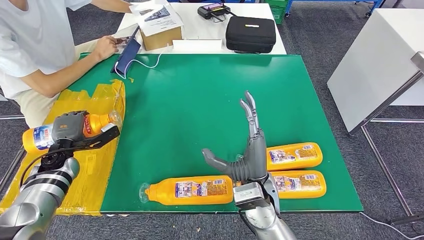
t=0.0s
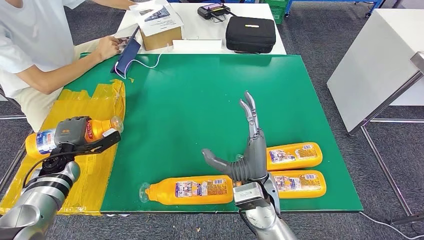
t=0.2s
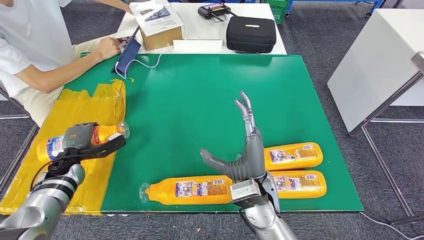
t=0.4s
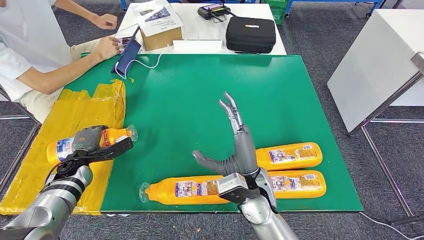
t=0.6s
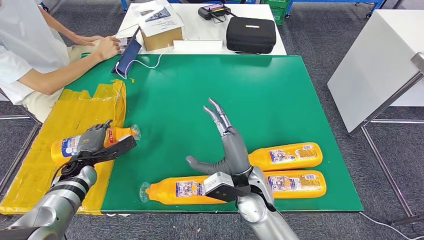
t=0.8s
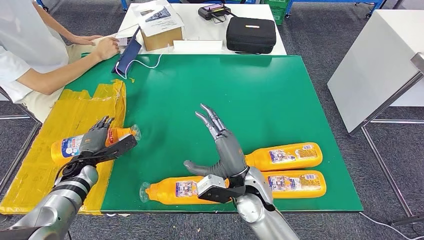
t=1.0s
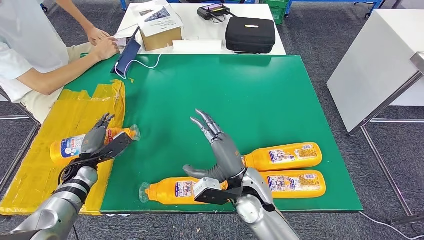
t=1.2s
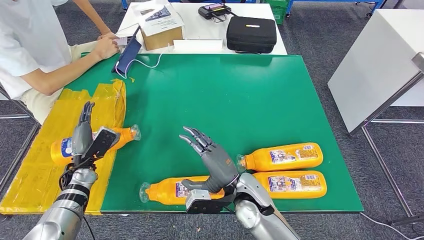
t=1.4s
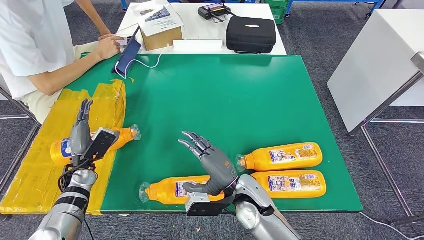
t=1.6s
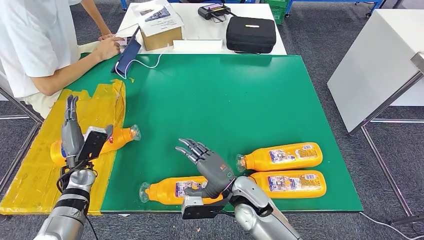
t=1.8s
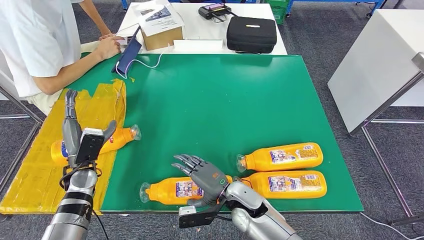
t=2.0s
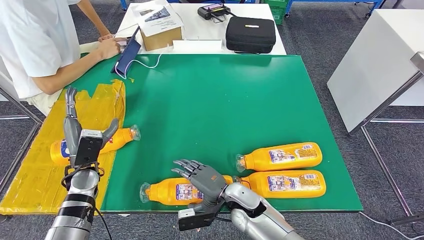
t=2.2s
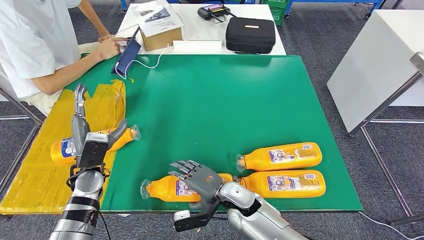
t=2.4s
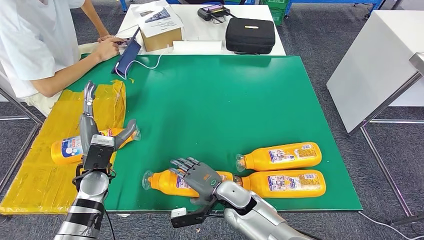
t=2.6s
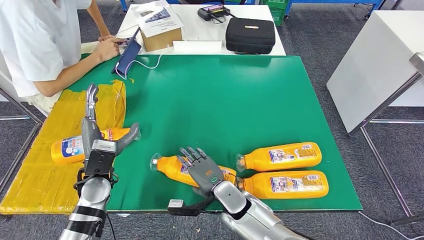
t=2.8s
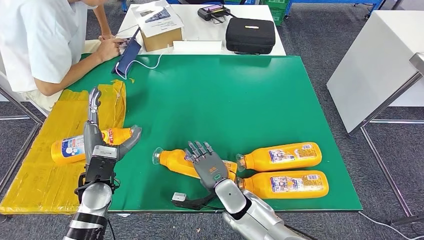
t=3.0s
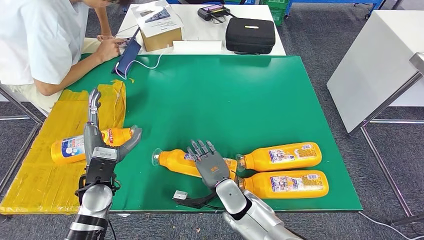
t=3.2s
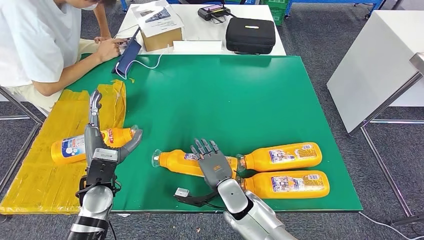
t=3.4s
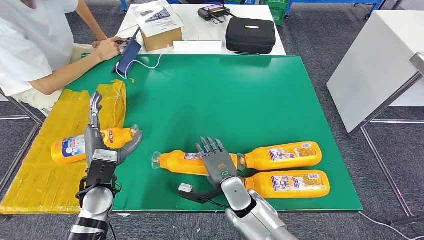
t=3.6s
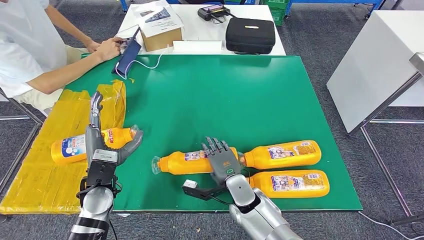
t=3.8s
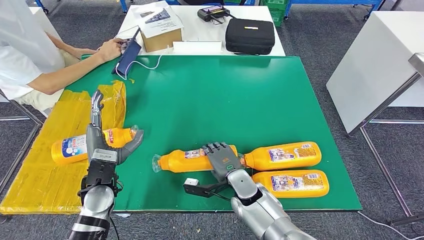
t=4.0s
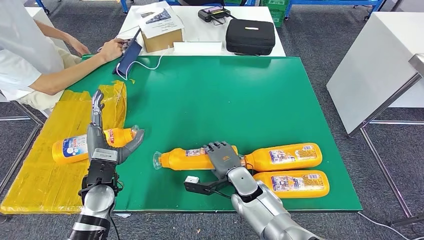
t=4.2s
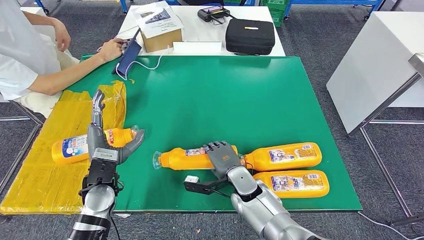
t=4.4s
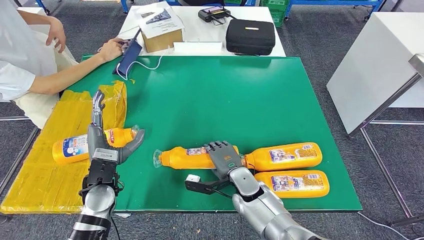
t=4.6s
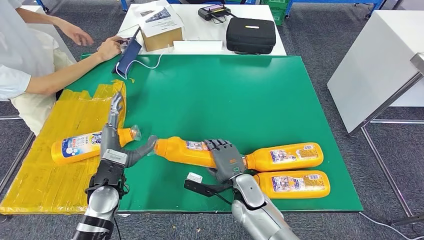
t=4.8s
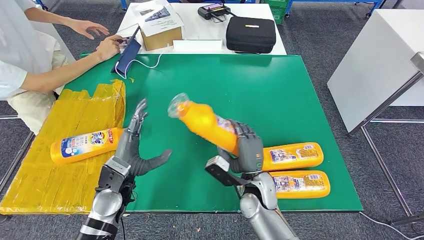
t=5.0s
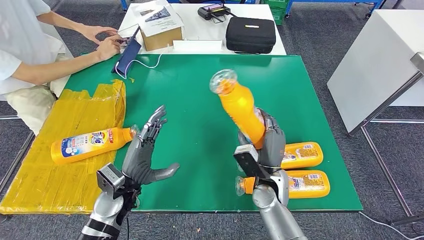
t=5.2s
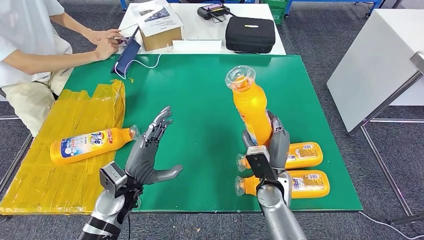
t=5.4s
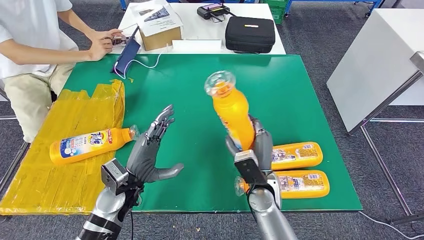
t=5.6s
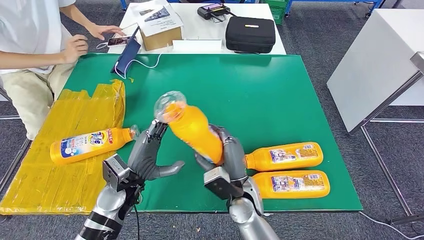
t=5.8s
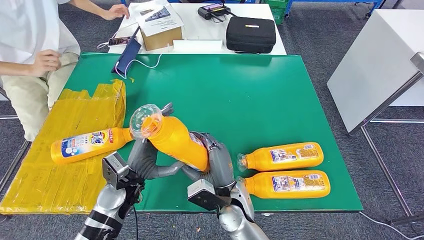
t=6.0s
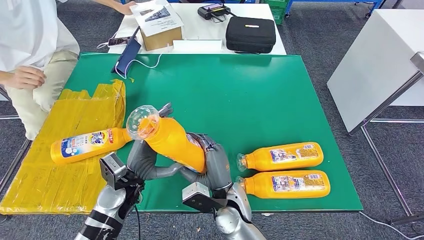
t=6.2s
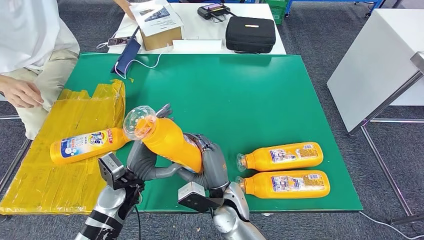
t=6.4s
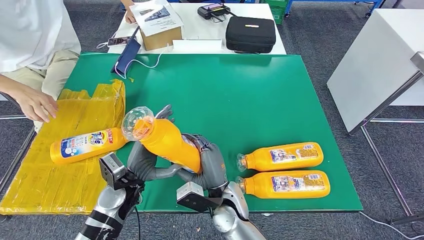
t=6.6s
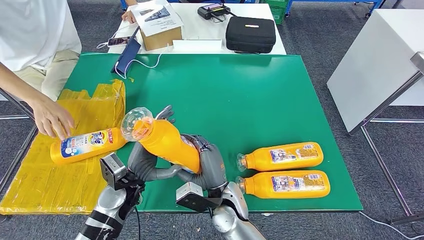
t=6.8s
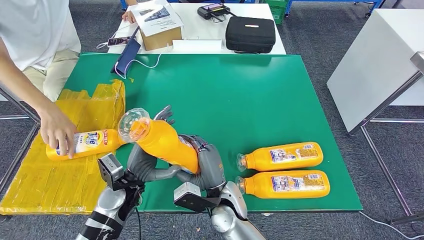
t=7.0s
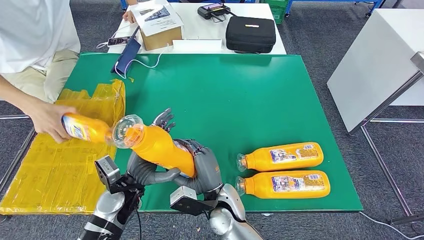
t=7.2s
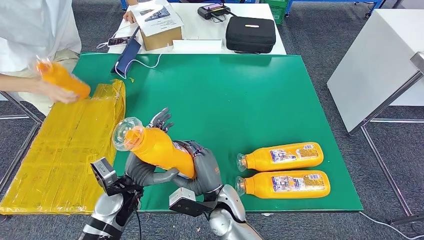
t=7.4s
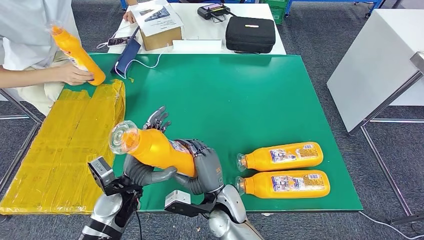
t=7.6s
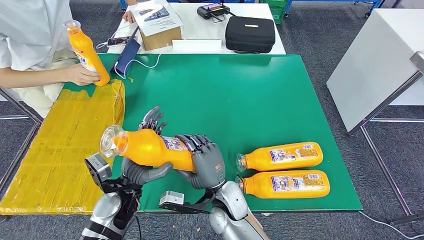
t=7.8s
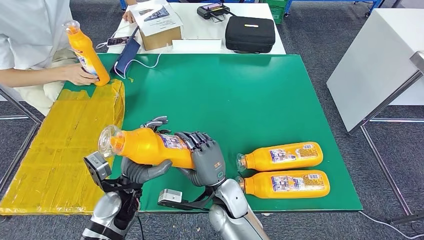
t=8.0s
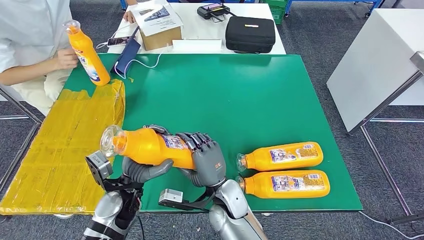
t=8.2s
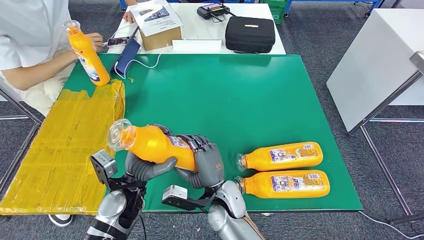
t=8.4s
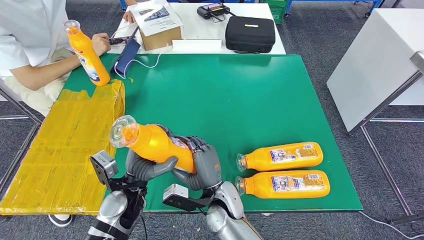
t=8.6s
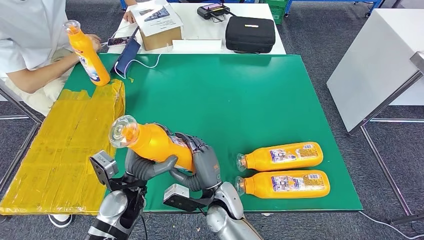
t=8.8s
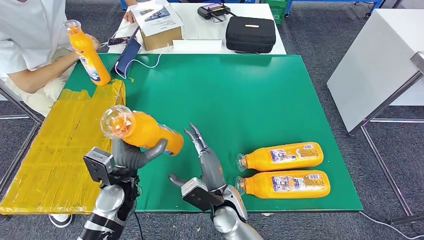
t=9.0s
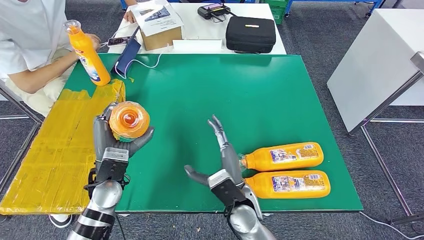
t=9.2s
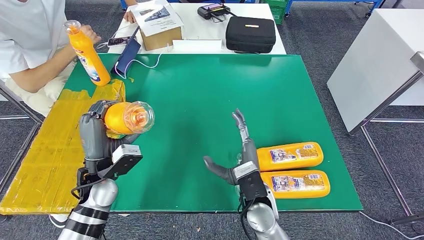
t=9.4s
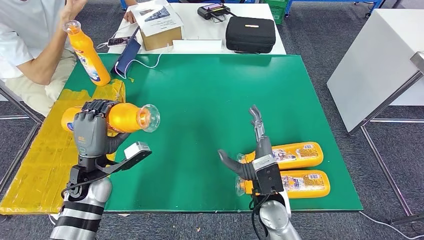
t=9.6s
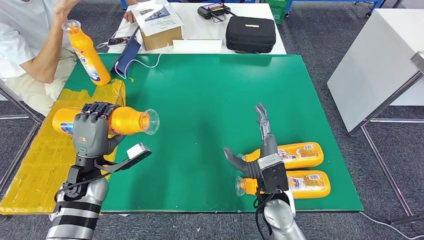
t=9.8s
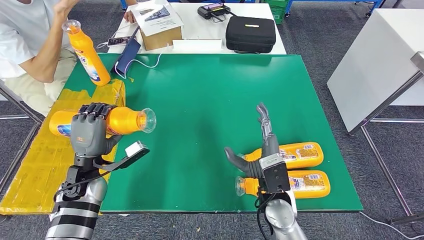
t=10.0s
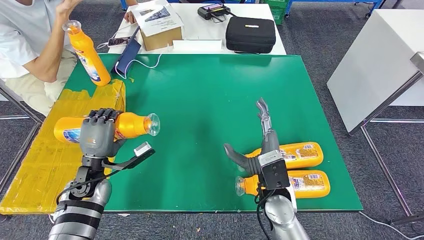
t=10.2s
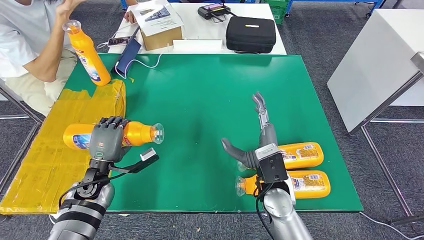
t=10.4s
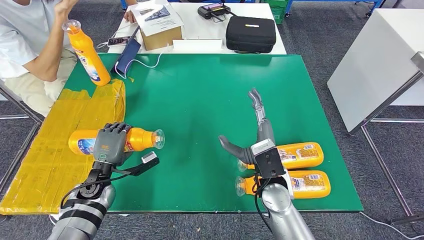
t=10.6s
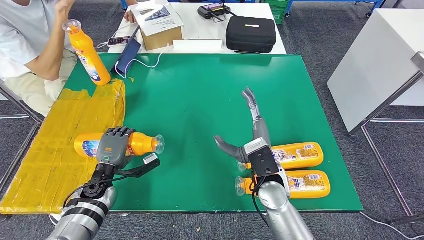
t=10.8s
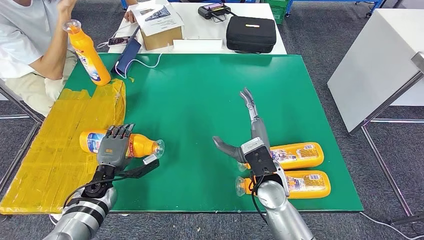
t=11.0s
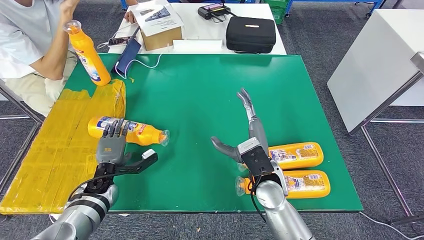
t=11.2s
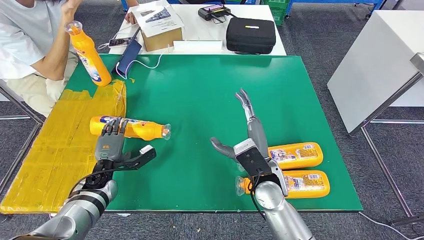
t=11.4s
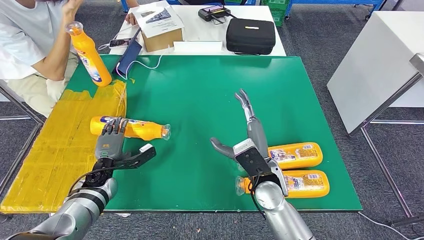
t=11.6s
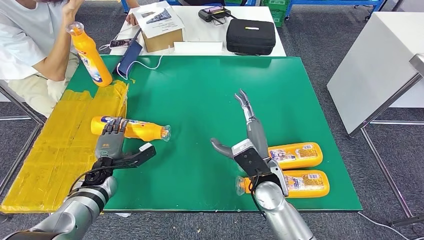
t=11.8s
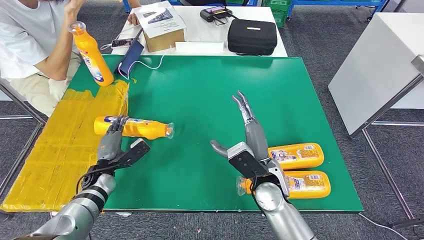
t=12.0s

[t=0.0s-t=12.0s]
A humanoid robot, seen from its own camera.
Step, t=0.0s to t=2.6s: Flip the fast-moving consumer goods bottle to the front side.
Step, t=2.8s to t=6.6s: Pick up the fast-moving consumer goods bottle from the table.
t=0.0s to t=1.6s: The left hand travels to the right by approximately 5 cm, while the right hand goes some 5 cm downward.
t=6.0s to t=7.6s: The hands make only small movements.
t=9.0s to t=10.4s: The right hand is displaced to the right and upward by some 10 cm, while the left hand goes some 10 cm to the left.

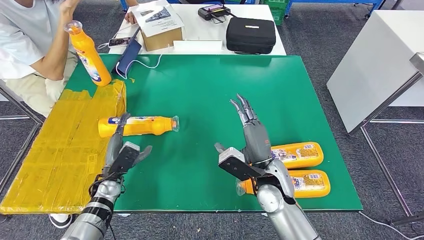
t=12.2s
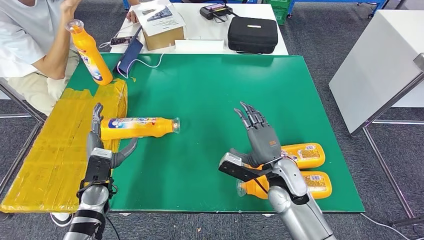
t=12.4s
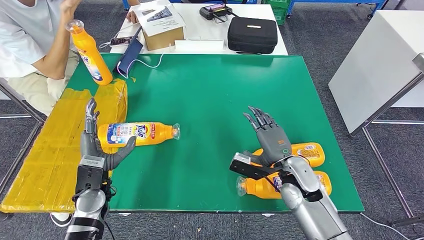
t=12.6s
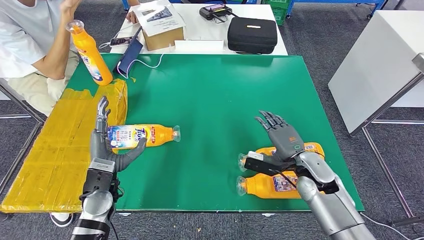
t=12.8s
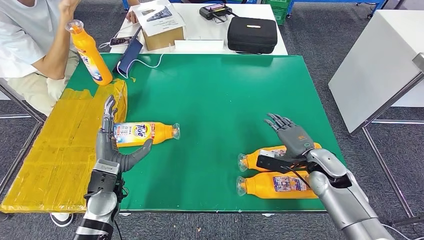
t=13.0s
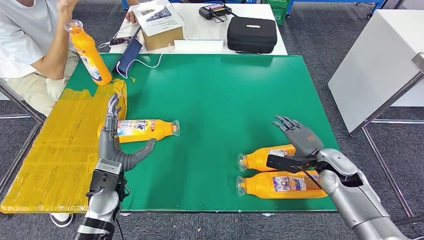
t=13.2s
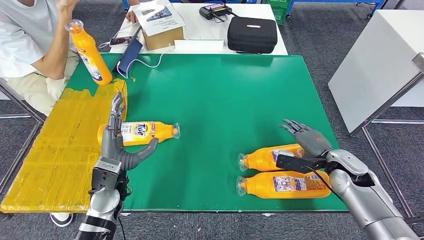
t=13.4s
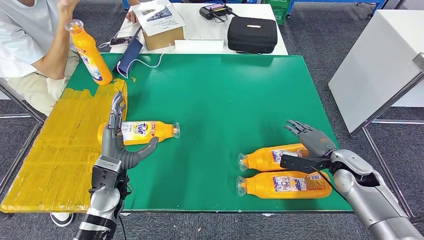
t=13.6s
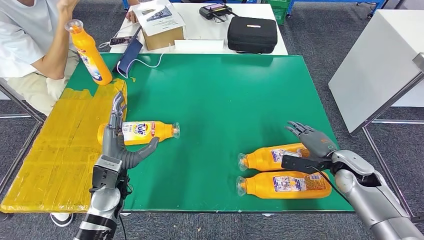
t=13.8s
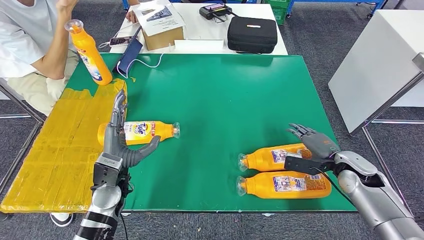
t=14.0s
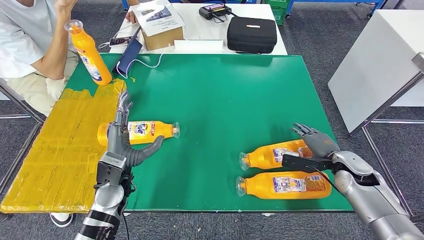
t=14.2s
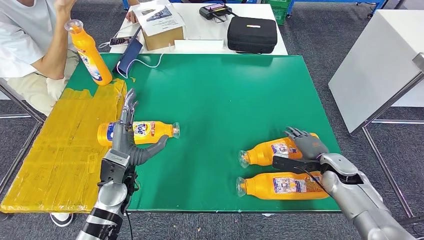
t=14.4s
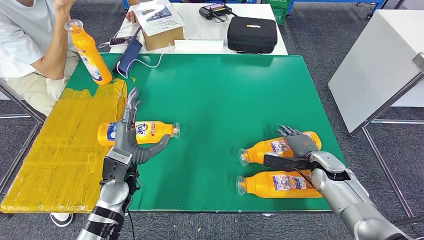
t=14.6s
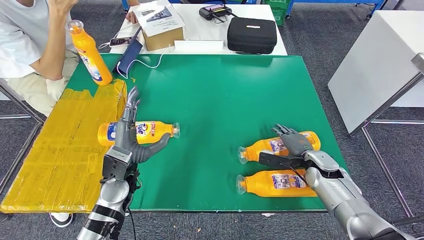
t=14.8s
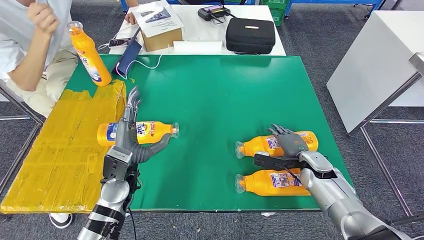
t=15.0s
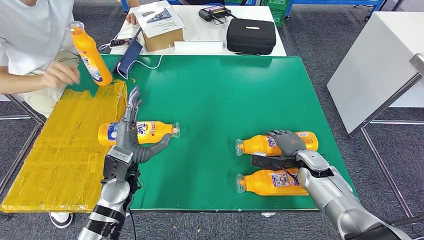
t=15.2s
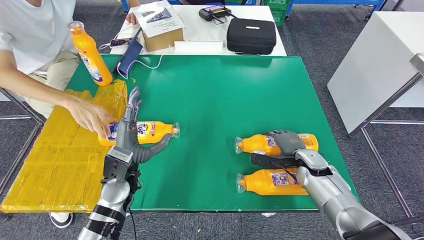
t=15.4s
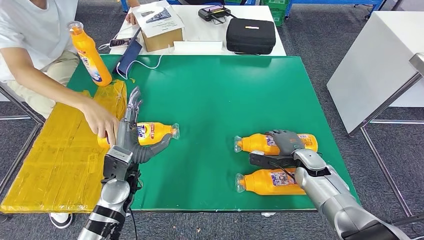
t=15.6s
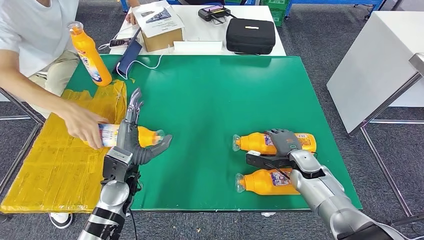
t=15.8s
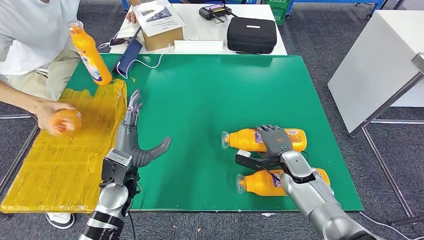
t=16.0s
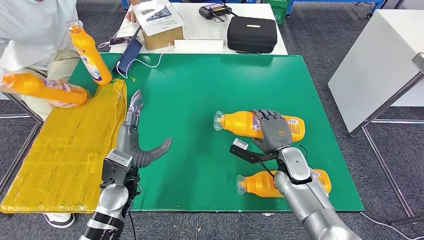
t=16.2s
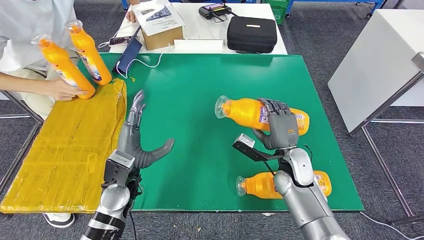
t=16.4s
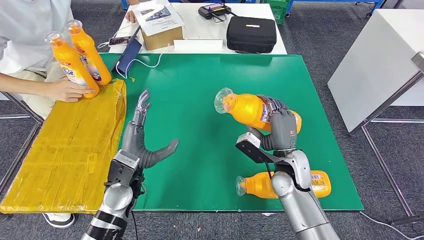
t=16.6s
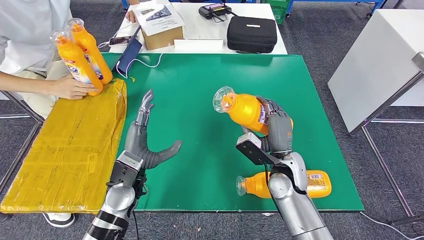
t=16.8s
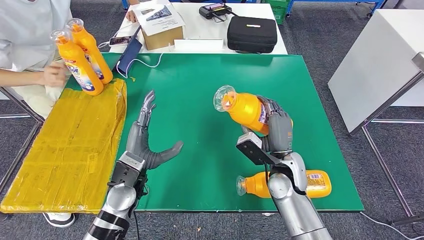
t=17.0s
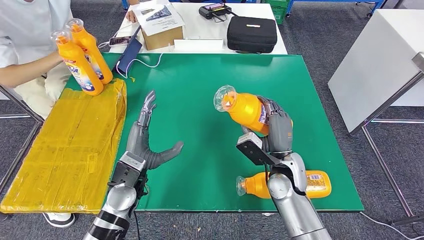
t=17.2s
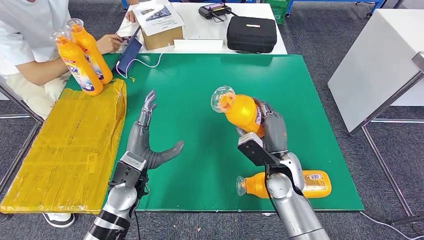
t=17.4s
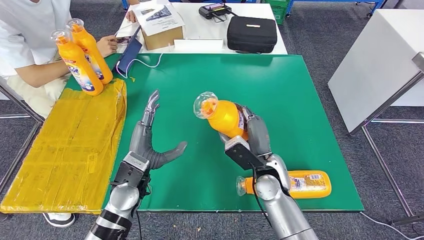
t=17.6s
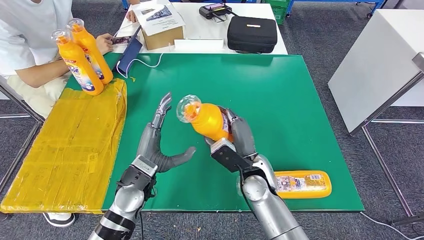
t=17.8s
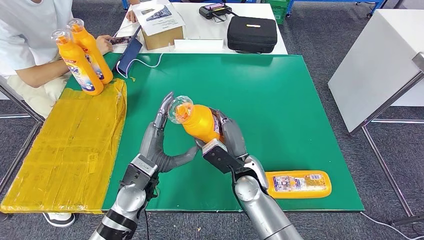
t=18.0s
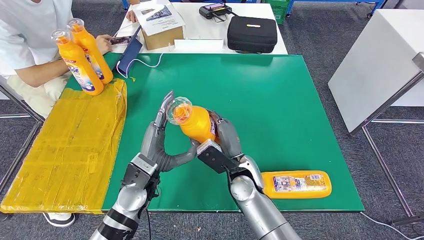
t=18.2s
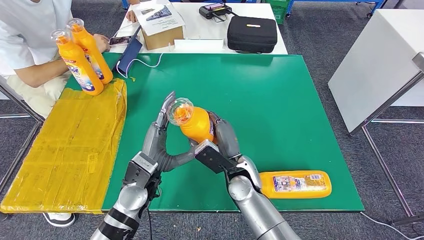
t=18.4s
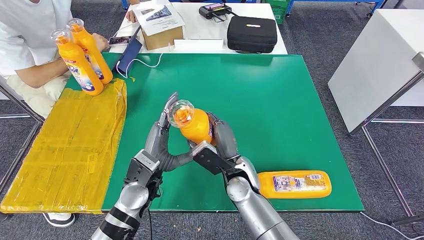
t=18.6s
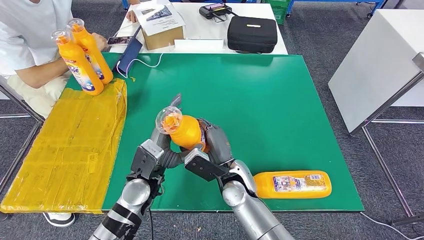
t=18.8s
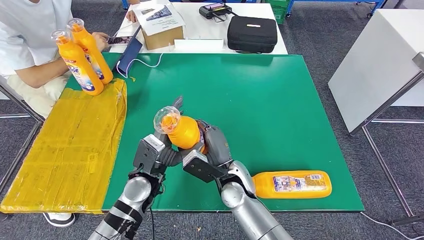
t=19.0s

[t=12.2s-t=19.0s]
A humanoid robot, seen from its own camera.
Step, t=12.6s to t=18.6s: Pick up the fast-moving consumer goods bottle from the table.
t=16.2s to t=17.6s: The right hand is displaced to the left by roughly 10 cm.
t=17.6s to t=19.0s: The right hand goes approximately 10 cm to the left.
